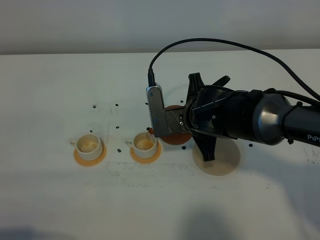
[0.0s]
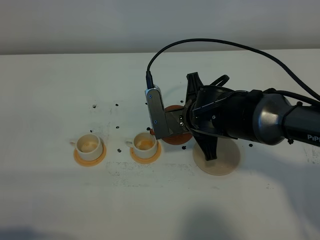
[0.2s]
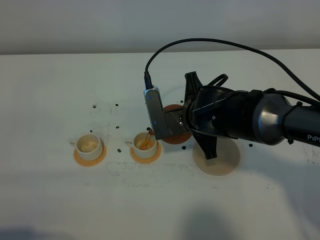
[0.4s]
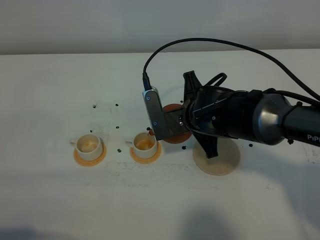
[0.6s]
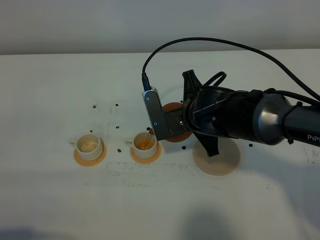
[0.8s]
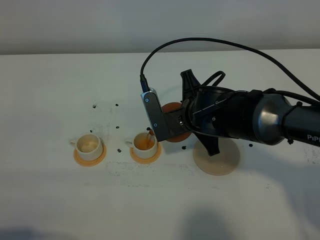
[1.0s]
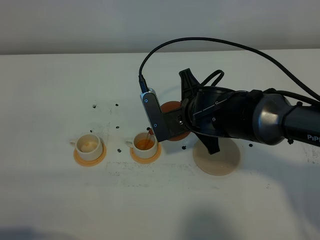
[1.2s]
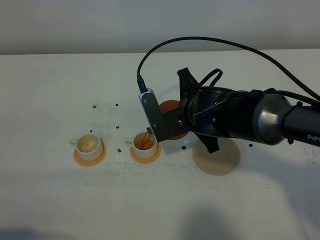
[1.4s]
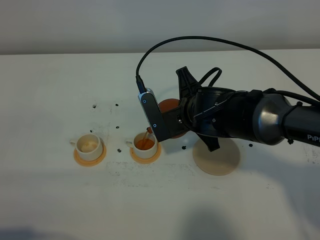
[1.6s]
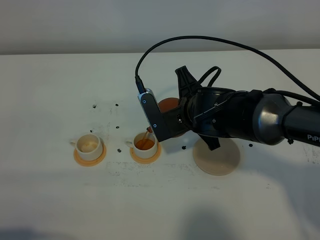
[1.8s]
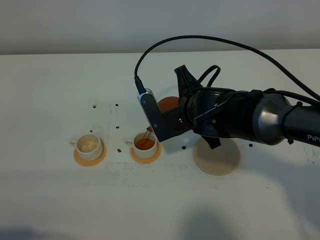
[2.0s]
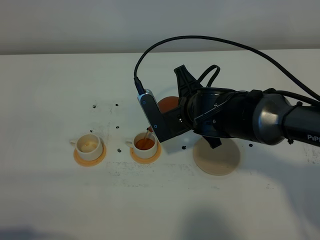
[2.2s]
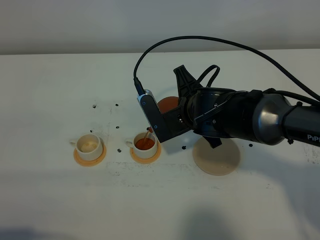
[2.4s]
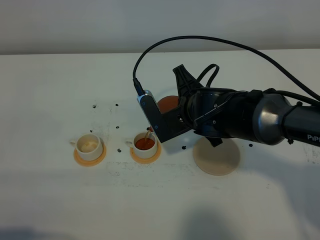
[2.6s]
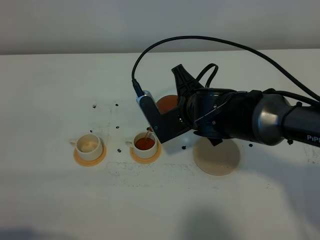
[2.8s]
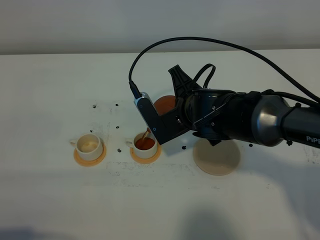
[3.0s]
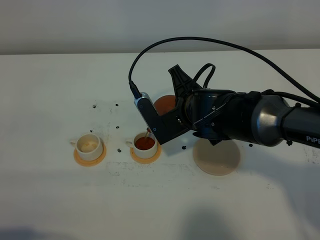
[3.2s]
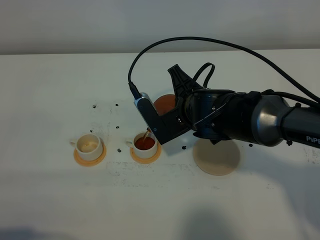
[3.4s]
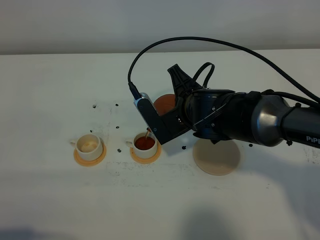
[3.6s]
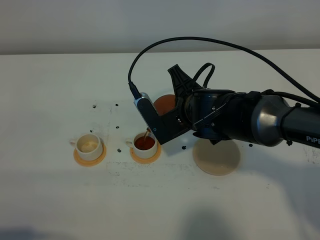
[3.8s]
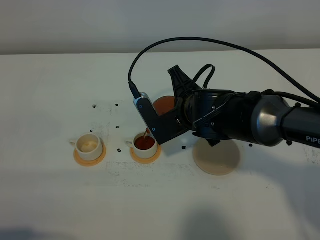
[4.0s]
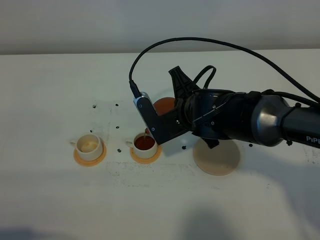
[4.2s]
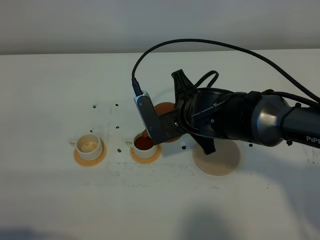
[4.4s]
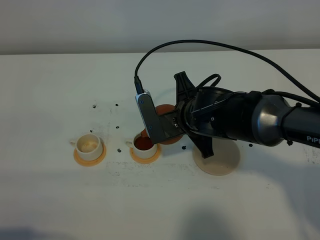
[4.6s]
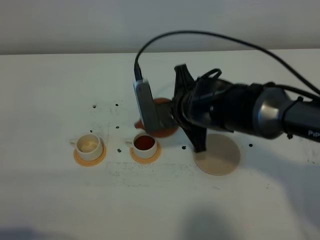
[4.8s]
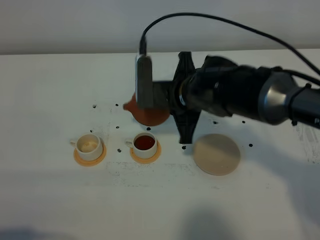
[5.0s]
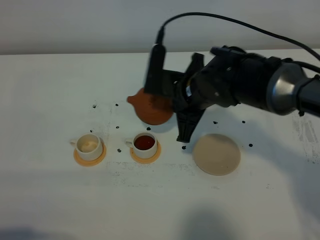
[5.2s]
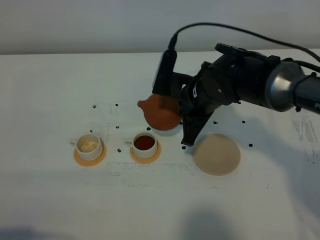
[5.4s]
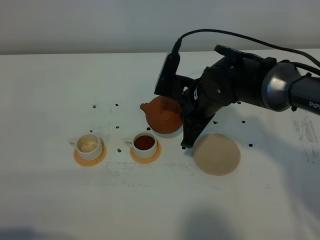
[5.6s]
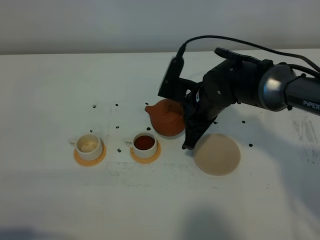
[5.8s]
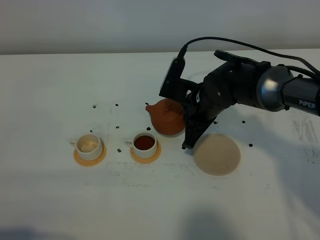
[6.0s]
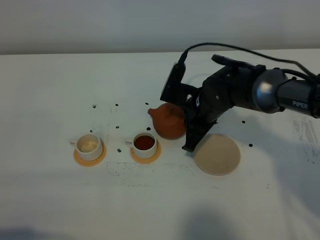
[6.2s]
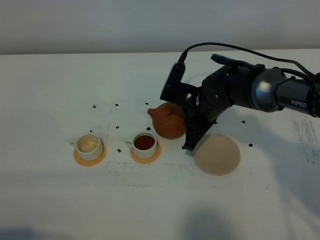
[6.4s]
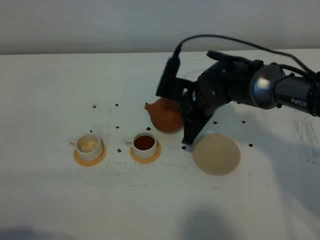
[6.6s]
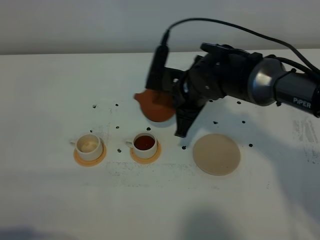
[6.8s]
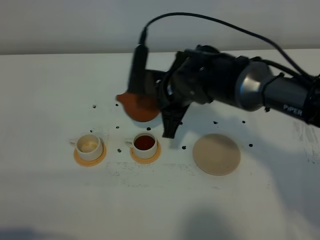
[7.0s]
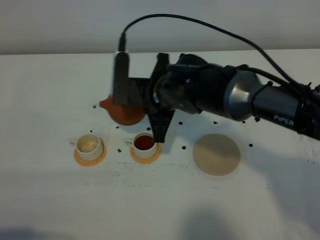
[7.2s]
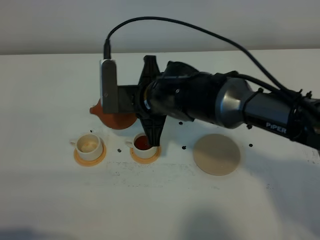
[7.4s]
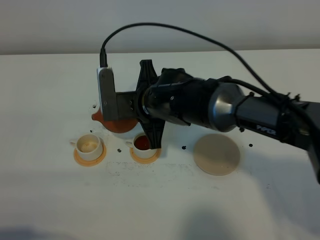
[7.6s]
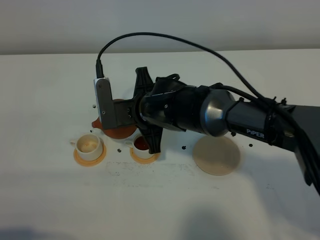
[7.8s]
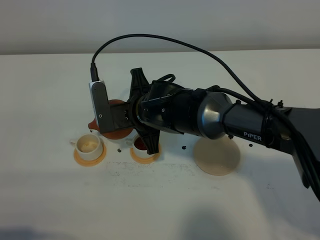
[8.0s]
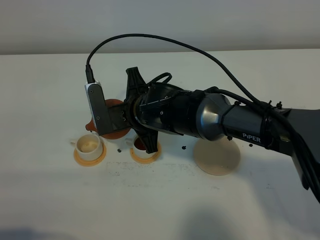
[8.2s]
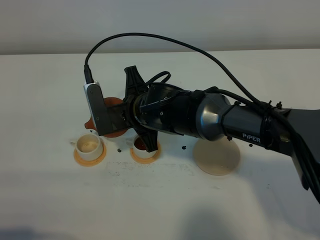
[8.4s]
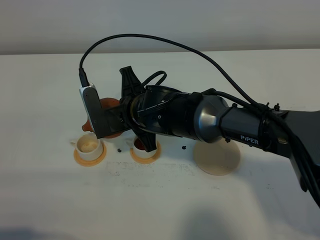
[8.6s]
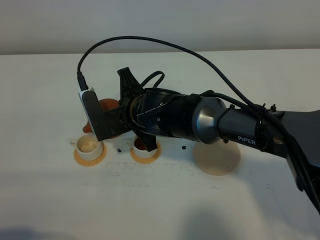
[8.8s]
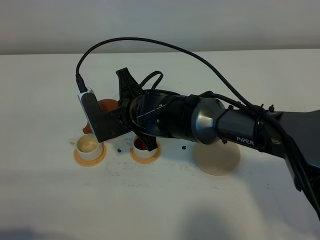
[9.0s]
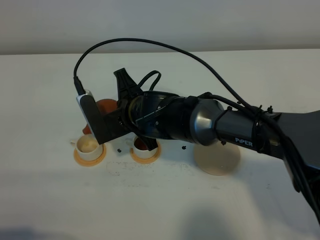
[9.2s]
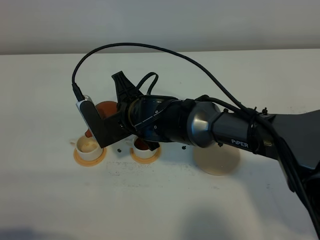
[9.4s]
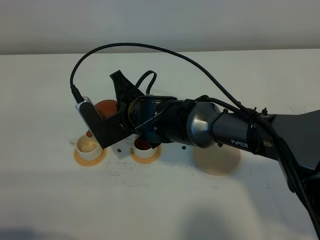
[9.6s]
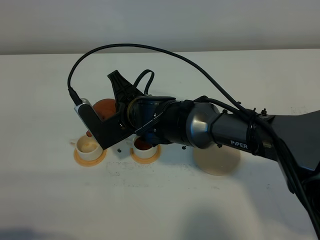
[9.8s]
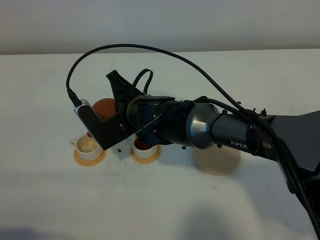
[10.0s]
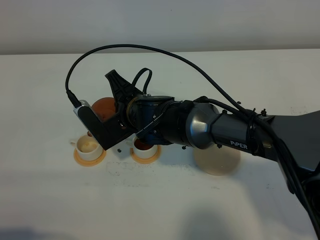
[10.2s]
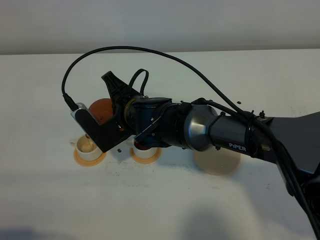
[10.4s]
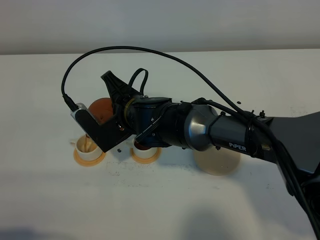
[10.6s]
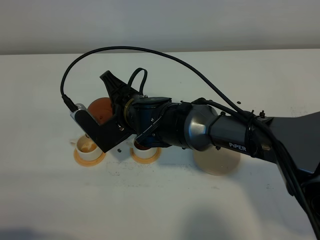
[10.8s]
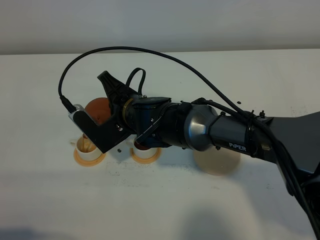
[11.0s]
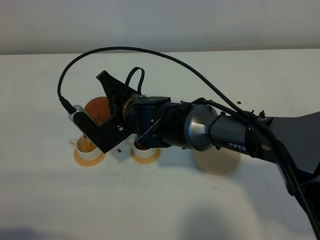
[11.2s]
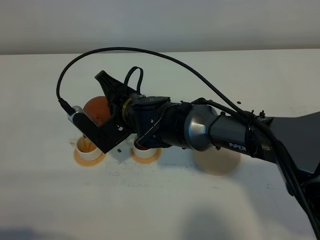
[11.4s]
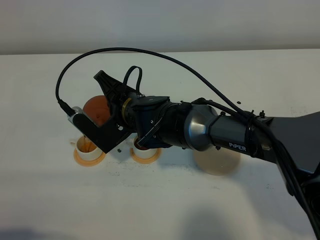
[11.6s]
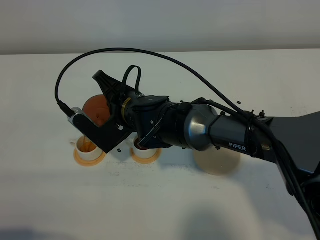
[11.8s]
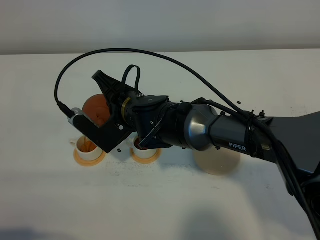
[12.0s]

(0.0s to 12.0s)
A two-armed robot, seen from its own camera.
Task of the whole recording: grasp the brown teapot and pour the tea into the two white teacups one by one, put the brown teapot back in its original place.
Step, 0.0s - 4.8s: Pour tea into the teacup with the right gripper.
0.0s - 1.6s: The grippers make only small movements.
1.6s - 4.4s: The grippers stay close to where they were, moving slightly.
4.4s - 6.0s: The right gripper shifts about 5 cm forward.
6.0s - 7.6s: The right gripper heads to the left, covering roughly 10 cm.
7.6s - 9.0s: The grippers move only a little.
9.0s - 10.4s: The grippers move only a little.
10.4s - 12.0s: The grippers move only a little.

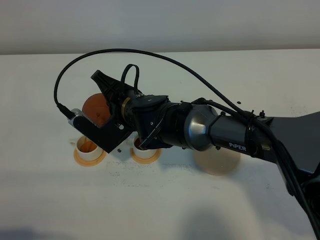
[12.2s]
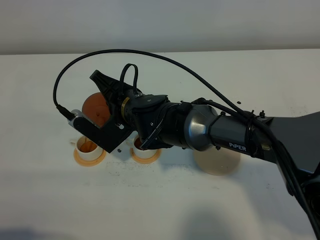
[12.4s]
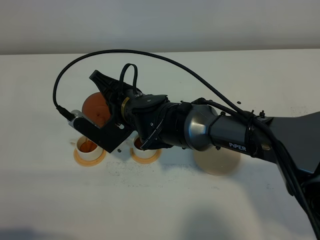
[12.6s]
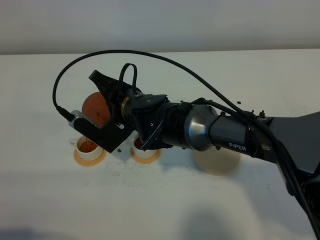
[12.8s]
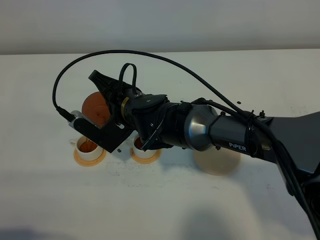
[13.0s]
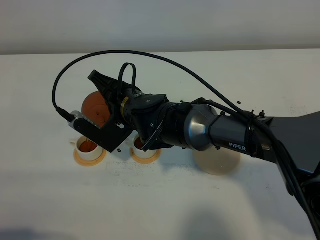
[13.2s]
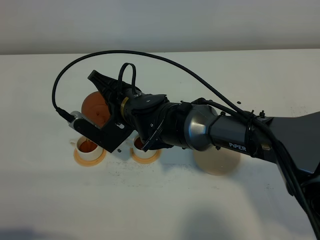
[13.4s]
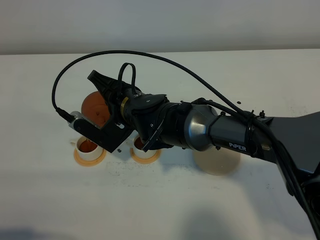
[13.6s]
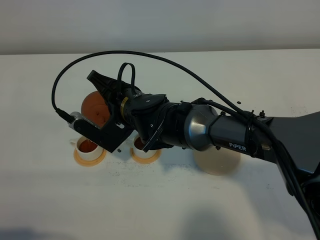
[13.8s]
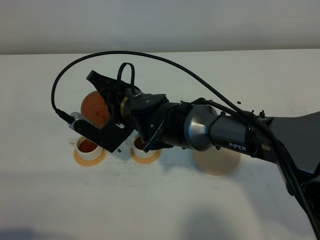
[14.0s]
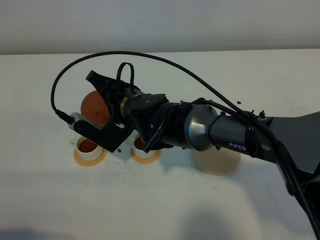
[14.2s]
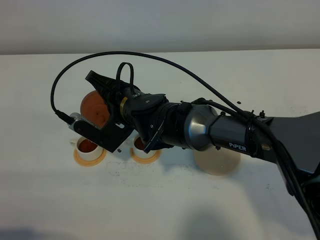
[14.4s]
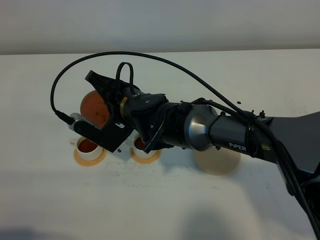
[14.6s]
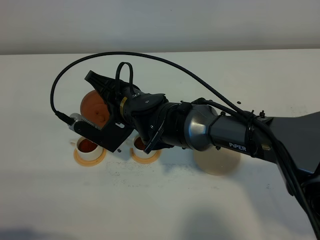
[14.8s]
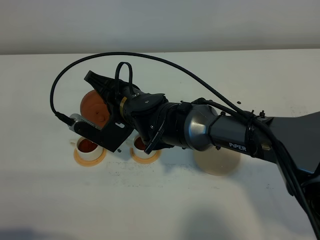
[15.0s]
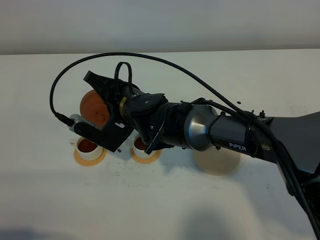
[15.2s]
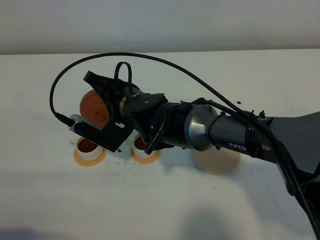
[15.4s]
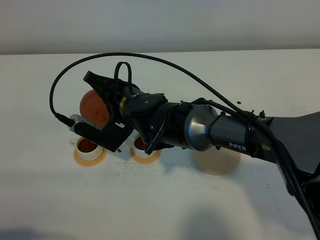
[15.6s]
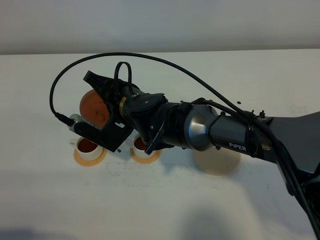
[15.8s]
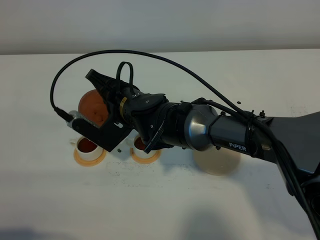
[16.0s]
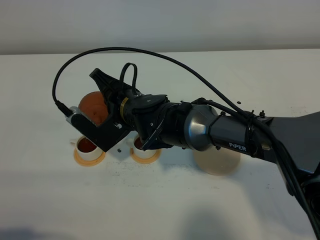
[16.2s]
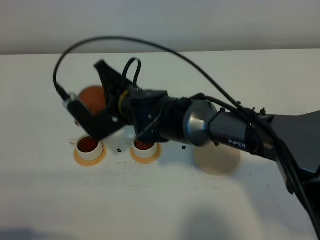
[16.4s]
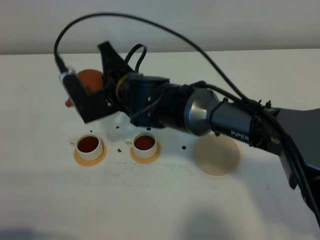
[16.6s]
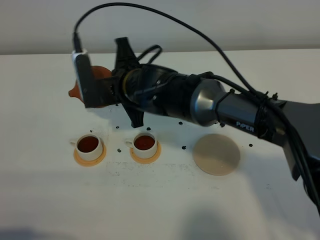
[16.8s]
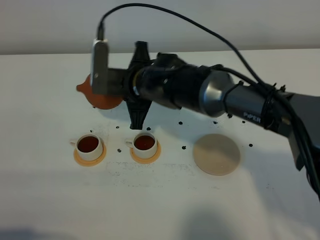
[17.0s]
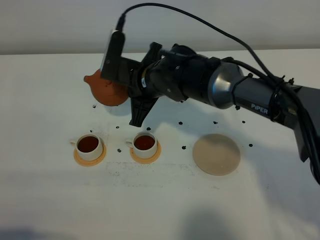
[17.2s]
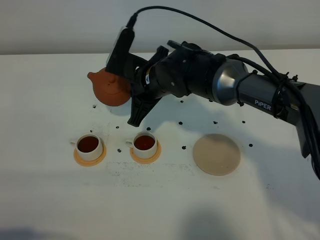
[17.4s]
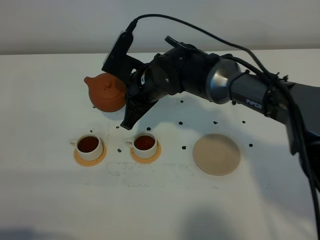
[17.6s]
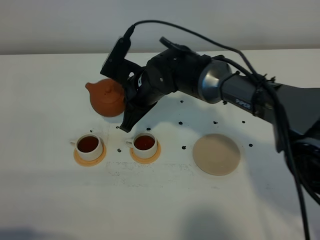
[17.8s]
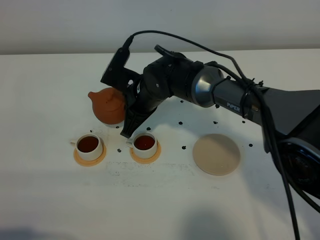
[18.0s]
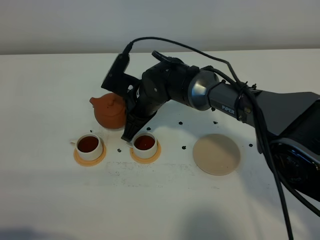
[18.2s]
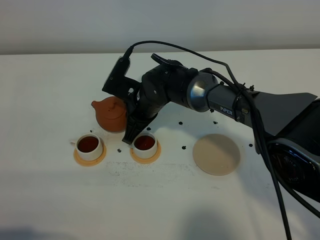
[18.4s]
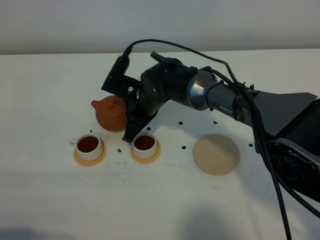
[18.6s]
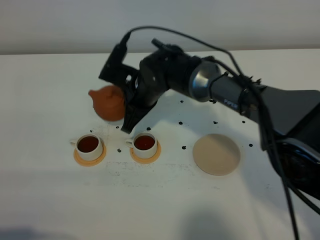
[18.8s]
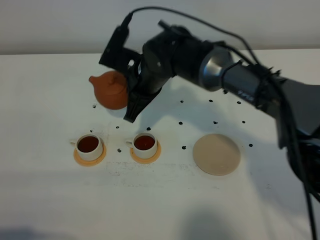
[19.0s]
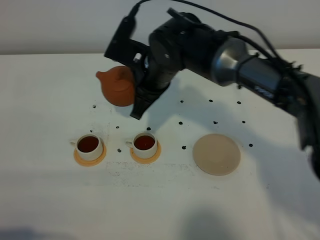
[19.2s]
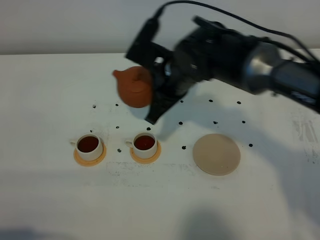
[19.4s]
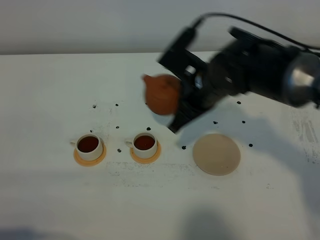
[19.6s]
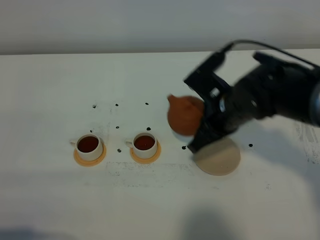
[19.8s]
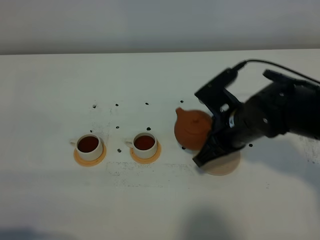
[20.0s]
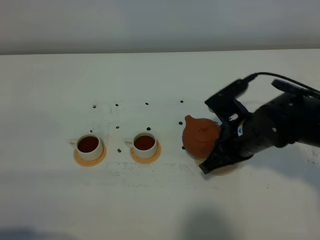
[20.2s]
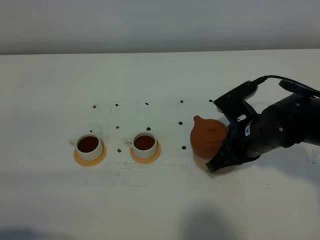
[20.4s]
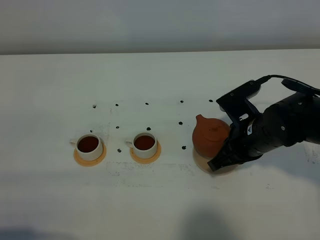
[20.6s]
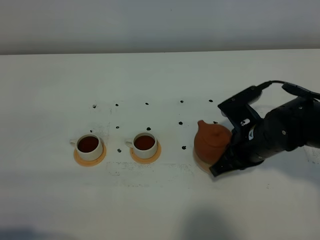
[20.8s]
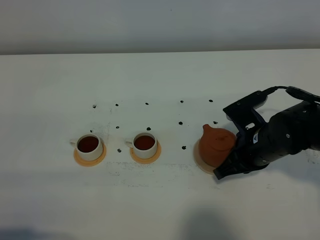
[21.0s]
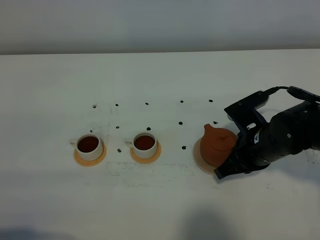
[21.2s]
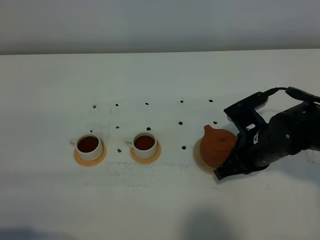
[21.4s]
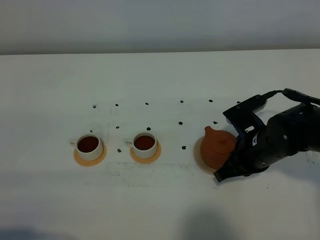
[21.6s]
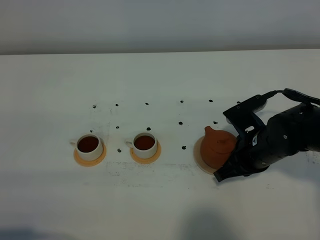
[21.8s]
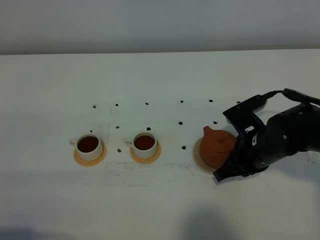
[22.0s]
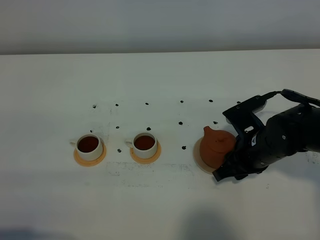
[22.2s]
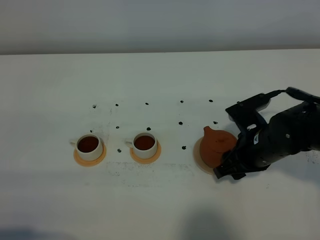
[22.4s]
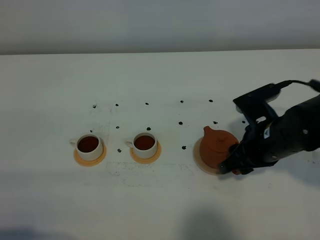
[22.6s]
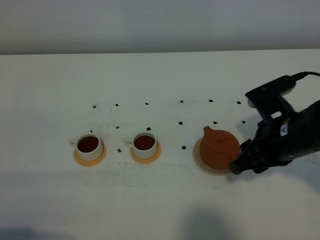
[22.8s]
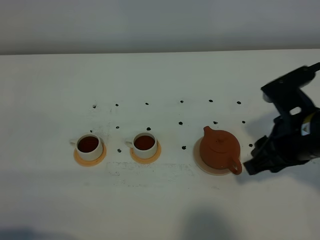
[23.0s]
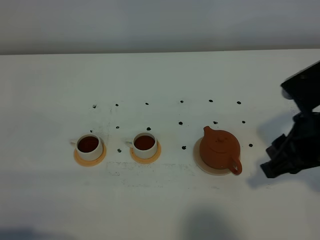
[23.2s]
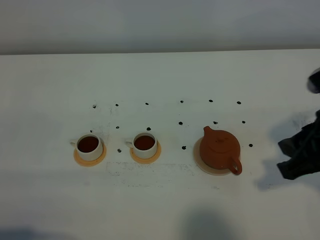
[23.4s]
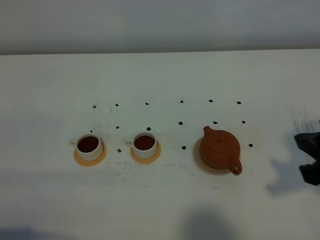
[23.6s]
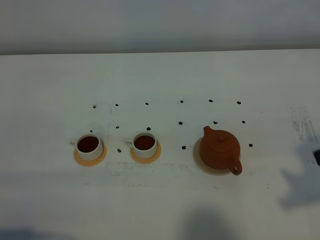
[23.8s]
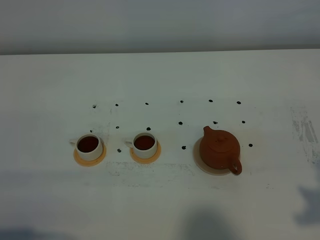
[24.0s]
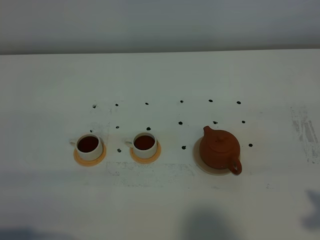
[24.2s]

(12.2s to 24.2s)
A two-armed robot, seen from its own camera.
Task of the whole recording: grasp the brown teapot and pour the tea into the two white teacups one by one, put the brown teapot back in its original place.
Step, 12.2s - 16.2s: Pour tea into the teacup with the right gripper.
12.2s - 13.8s: The grippers move only a little.
13.8s - 15.2s: The two grippers keep their place.
16.6s - 18.2s: The right gripper shifts about 5 cm downward.
18.2s - 19.8s: The right gripper moves to the right, backward and upward, about 20 cm.
19.8s - 21.2s: The right gripper shifts about 5 cm to the right.
21.2s - 22.6s: The right gripper opens.
22.6s - 24.2s: The right gripper moves backward, upward and to the right, roughly 25 cm.
